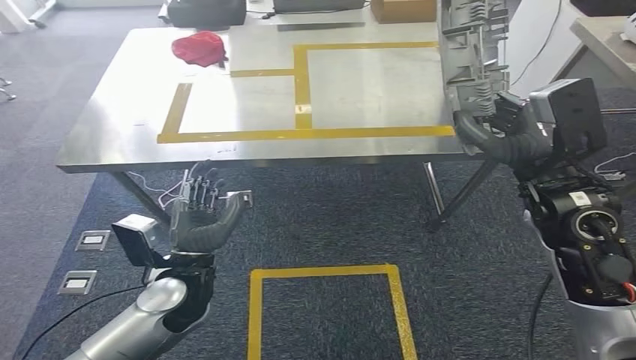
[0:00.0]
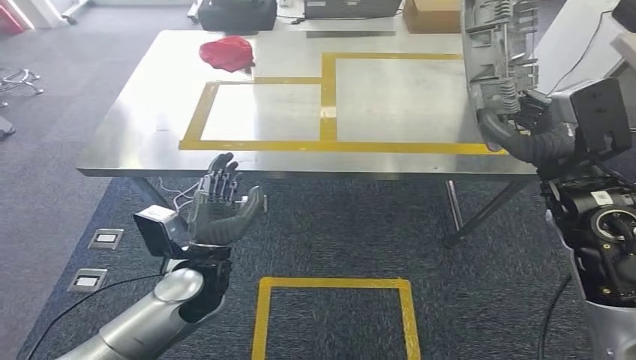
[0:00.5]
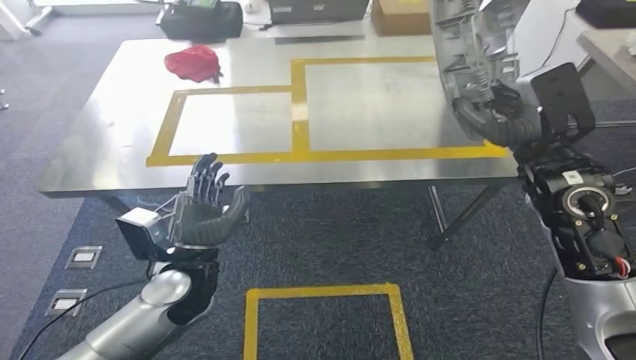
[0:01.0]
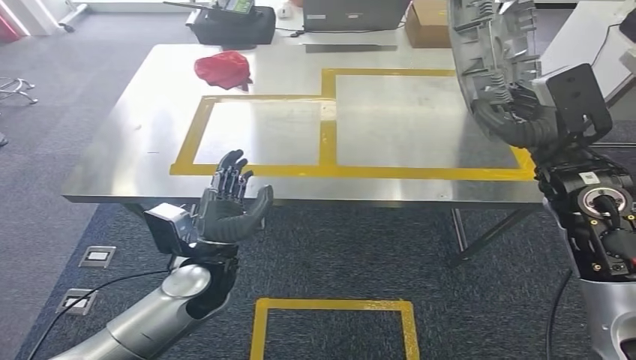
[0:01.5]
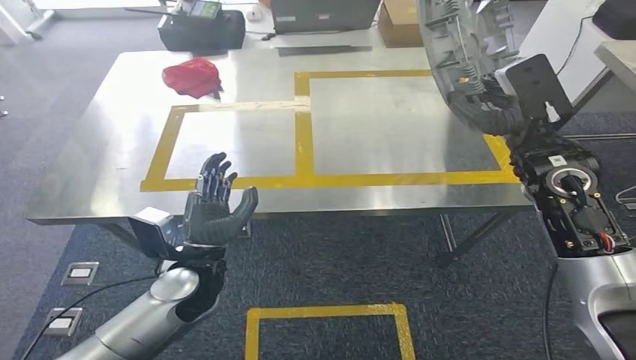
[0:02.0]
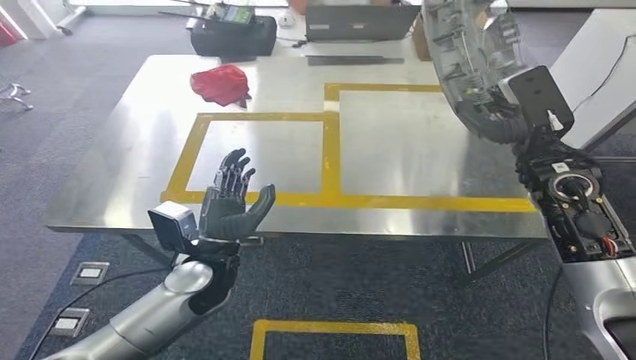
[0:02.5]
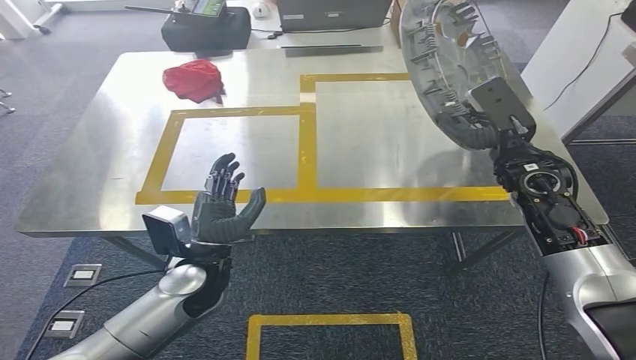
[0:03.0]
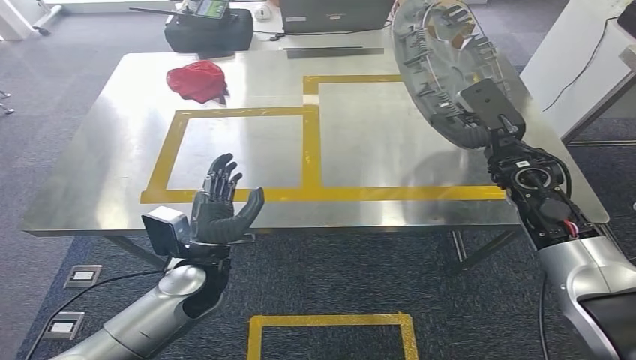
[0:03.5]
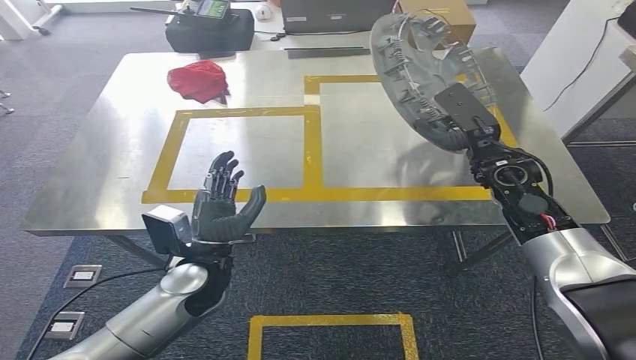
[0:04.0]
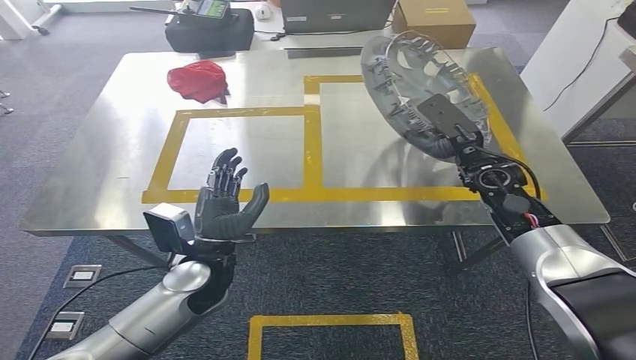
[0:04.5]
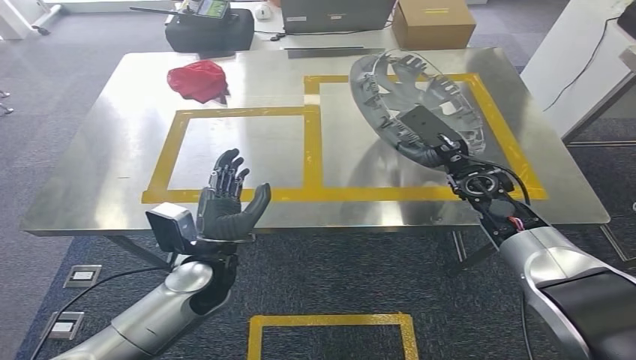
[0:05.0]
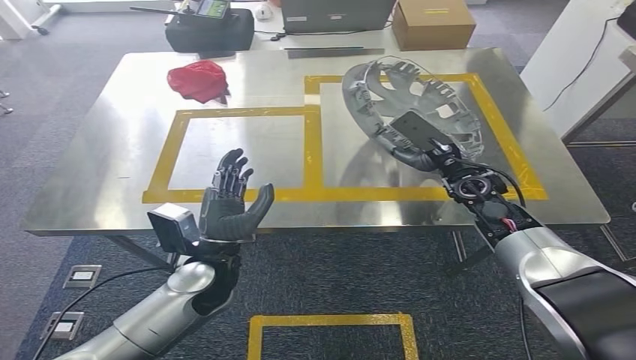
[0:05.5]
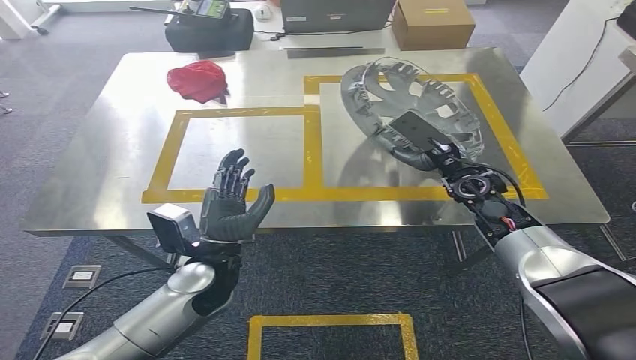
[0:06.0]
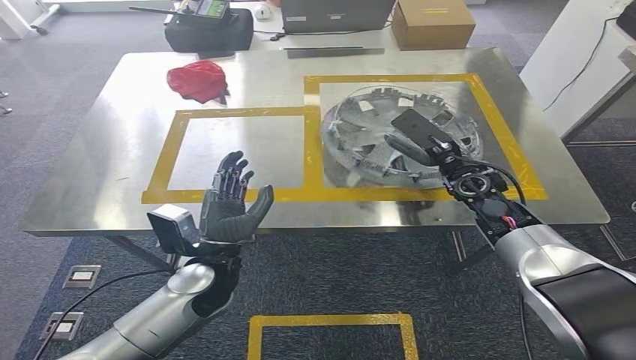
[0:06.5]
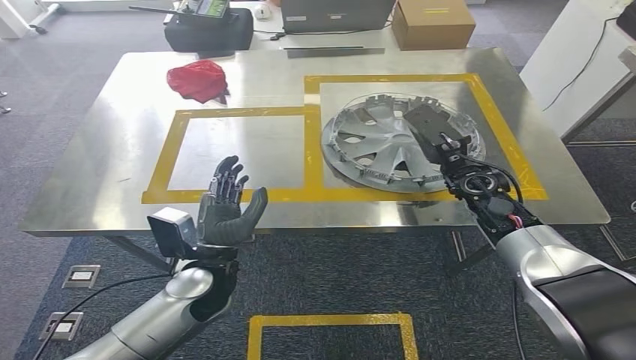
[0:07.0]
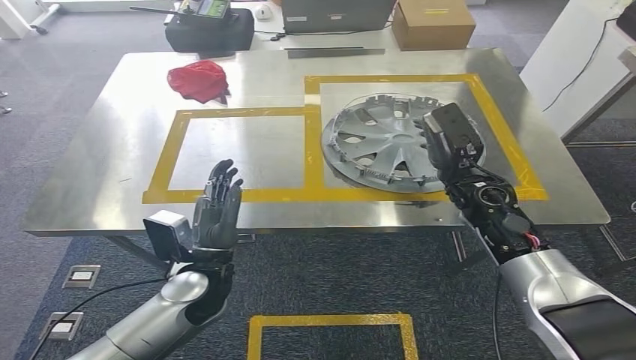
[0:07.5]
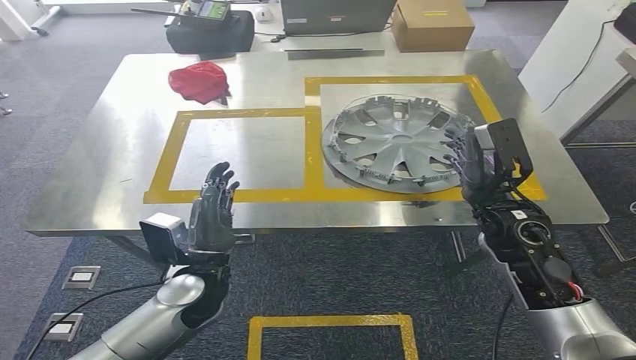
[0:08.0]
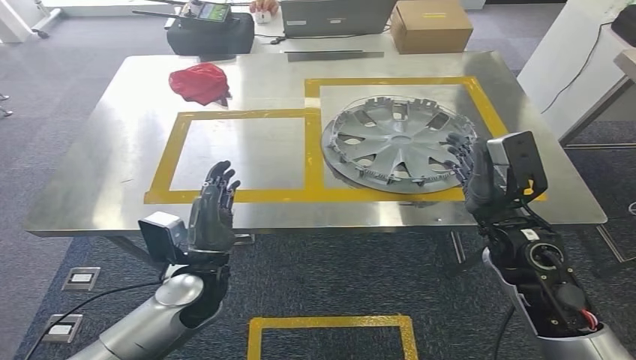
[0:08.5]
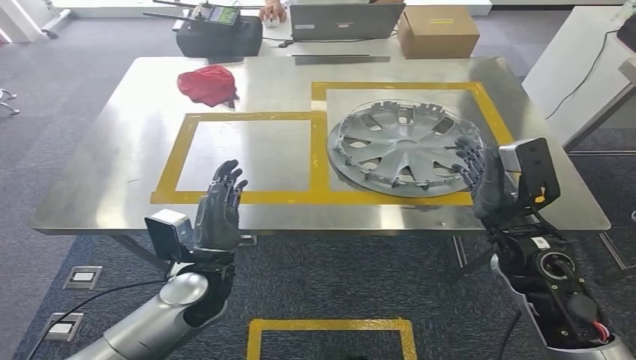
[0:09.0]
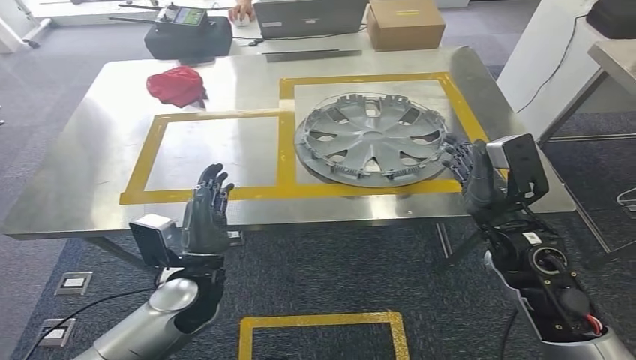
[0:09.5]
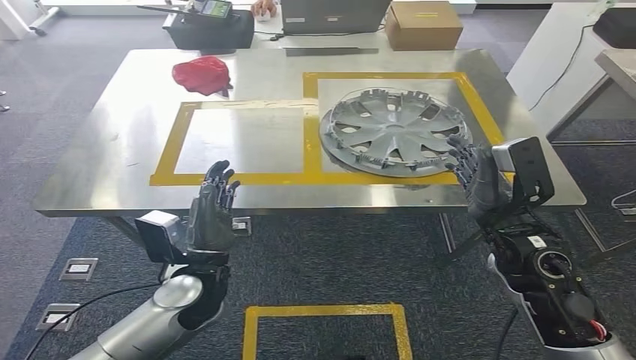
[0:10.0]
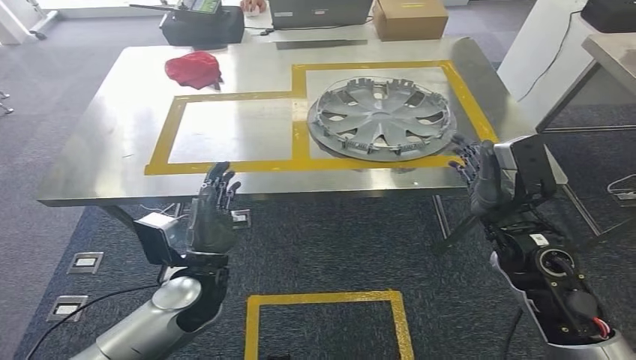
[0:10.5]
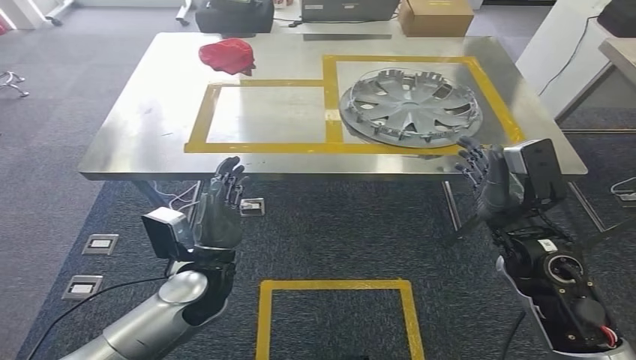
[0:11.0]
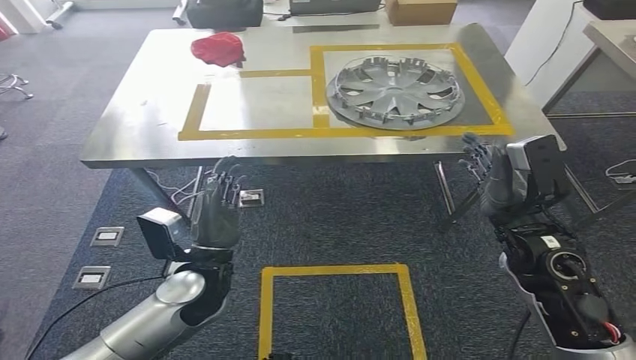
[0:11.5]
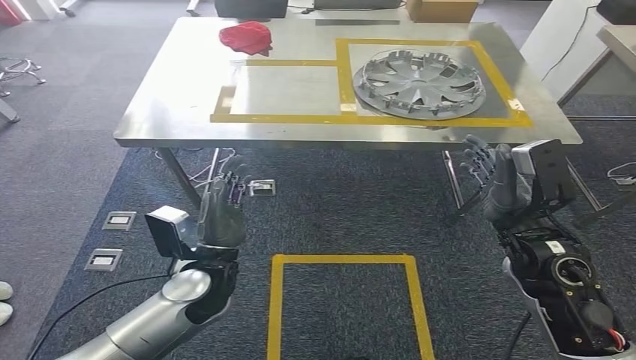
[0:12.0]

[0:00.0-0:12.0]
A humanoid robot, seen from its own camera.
Step, 0:00.0 to 0:03.5: Move the small parts to the workbench.
Step, 0:04.0 to 0:08.5: Insert the small parts into the corresponding slots on the workbench.
0:04.0 to 0:06.0: The right hand changes place by roughly 5 cm.
0:06.0 to 0:08.0: The right hand travels backward by about 10 cm.

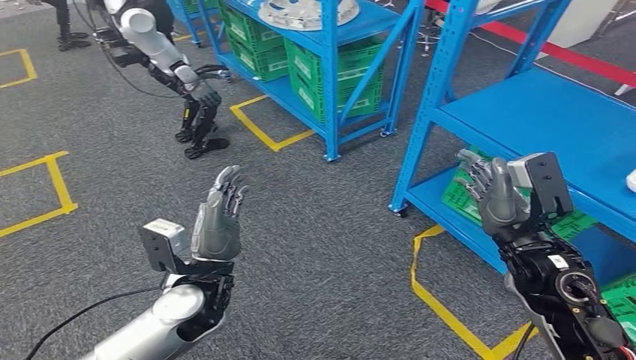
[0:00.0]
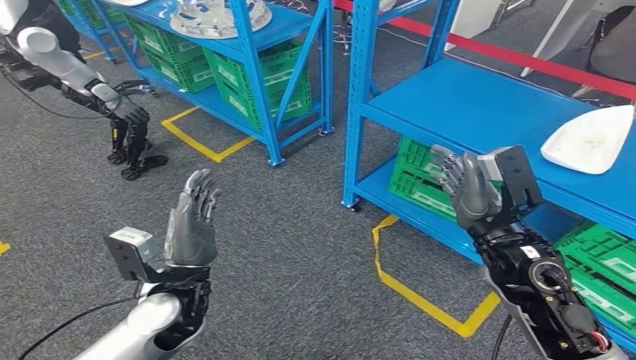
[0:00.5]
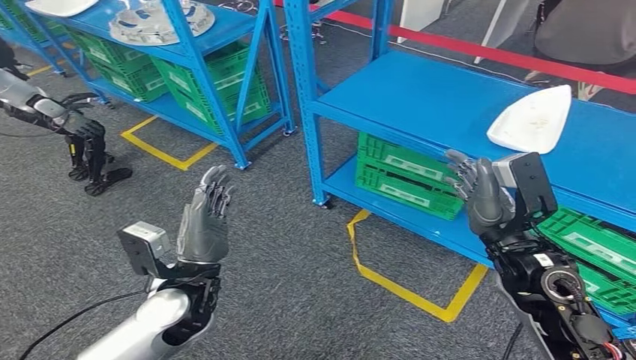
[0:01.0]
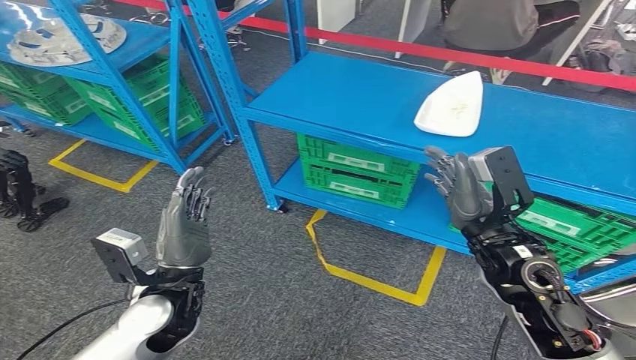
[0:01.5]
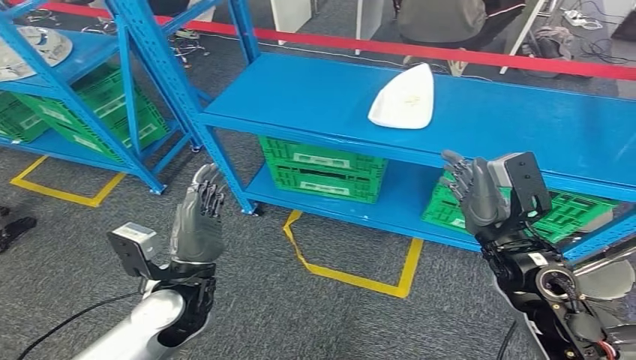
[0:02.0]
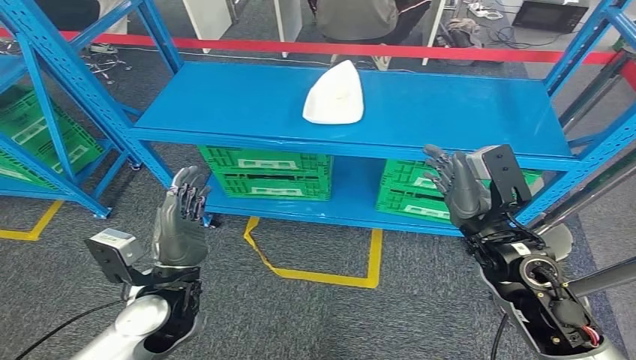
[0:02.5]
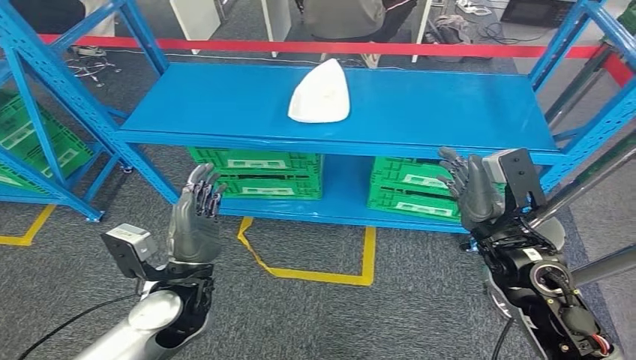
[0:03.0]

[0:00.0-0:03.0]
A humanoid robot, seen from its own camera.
Step, 0:00.0 to 0:03.0: Return to the initial position at the workbench.
